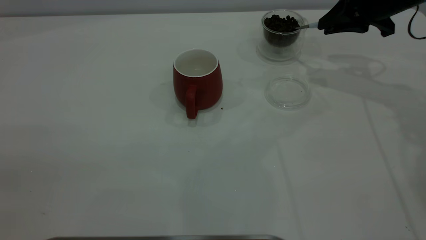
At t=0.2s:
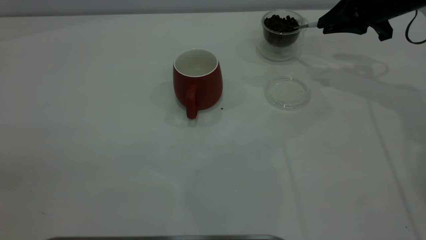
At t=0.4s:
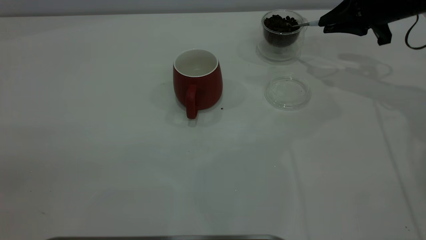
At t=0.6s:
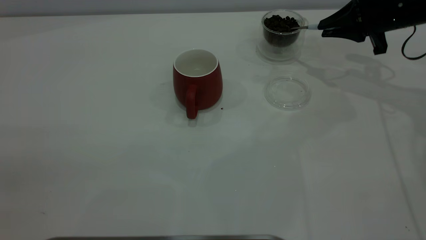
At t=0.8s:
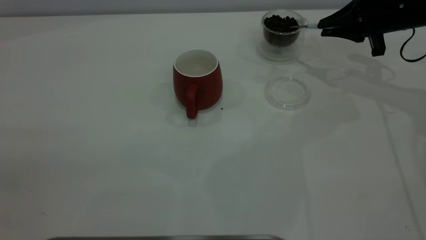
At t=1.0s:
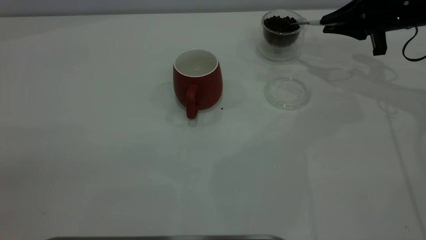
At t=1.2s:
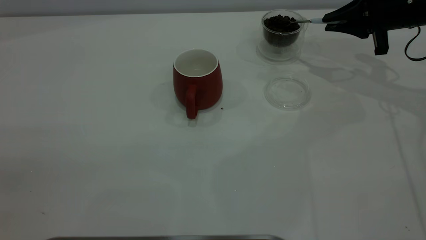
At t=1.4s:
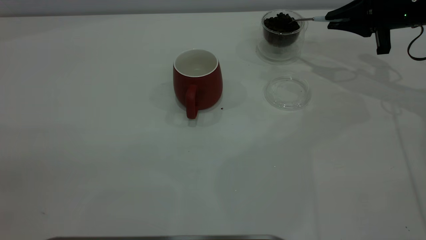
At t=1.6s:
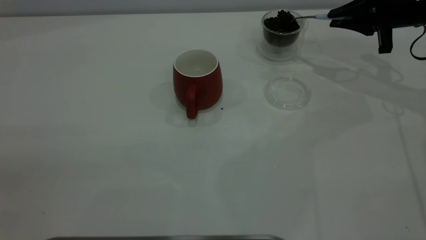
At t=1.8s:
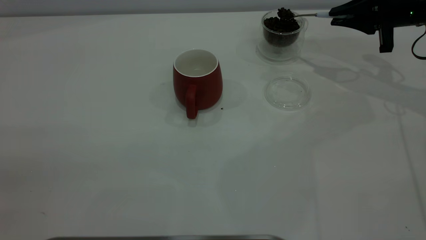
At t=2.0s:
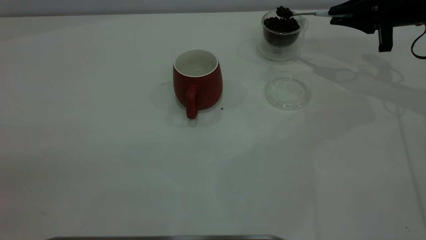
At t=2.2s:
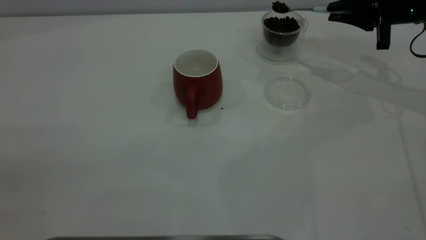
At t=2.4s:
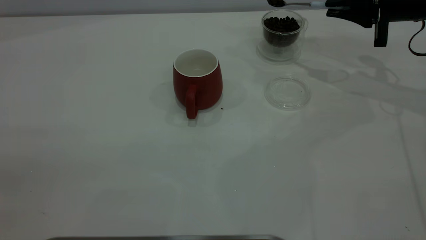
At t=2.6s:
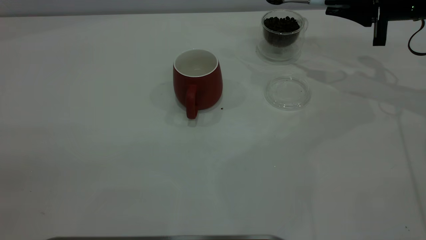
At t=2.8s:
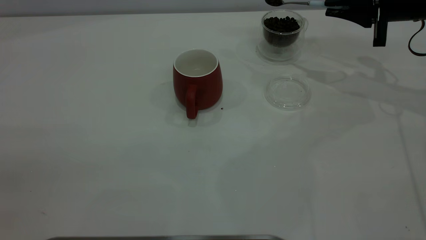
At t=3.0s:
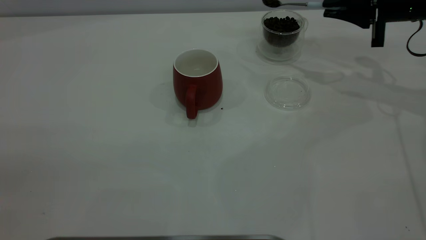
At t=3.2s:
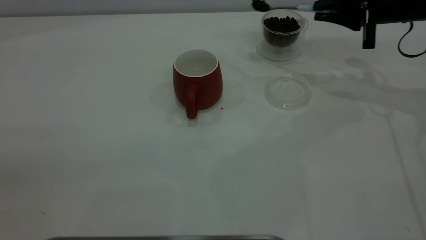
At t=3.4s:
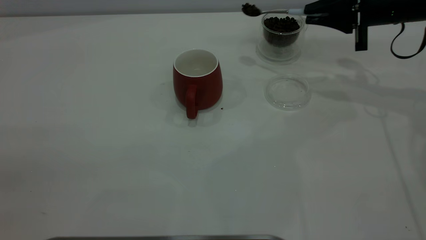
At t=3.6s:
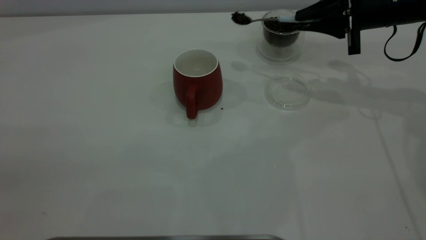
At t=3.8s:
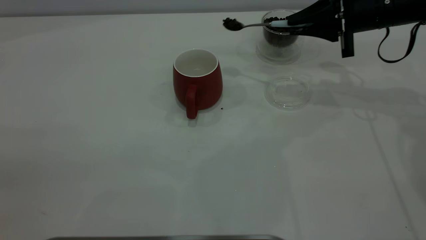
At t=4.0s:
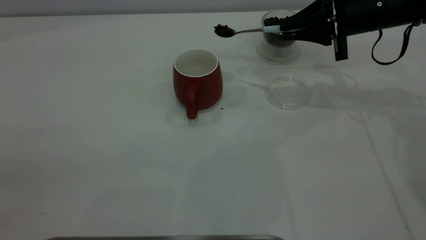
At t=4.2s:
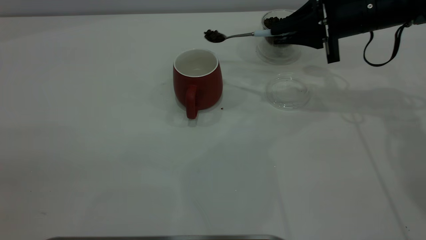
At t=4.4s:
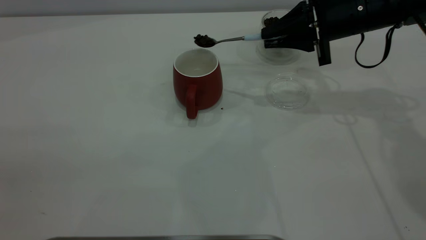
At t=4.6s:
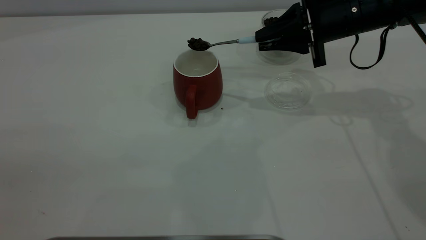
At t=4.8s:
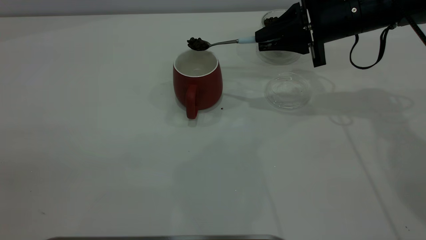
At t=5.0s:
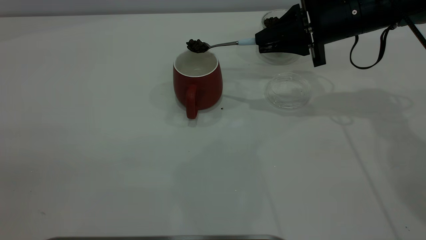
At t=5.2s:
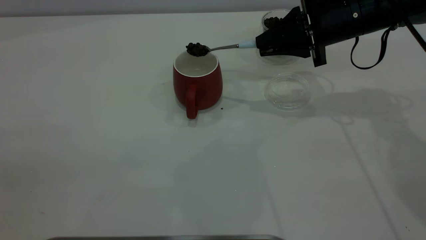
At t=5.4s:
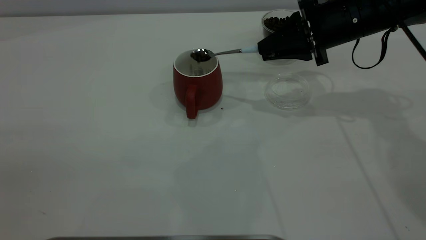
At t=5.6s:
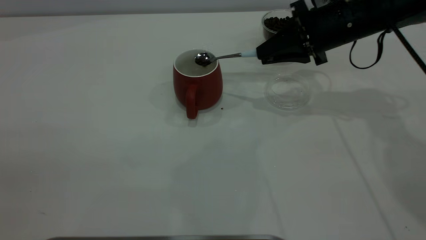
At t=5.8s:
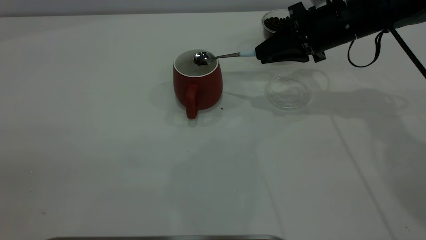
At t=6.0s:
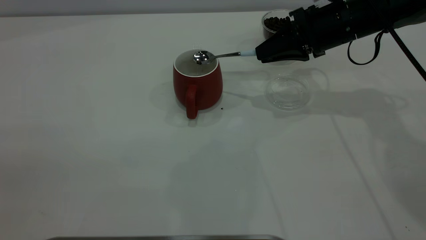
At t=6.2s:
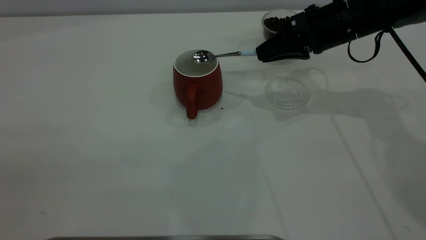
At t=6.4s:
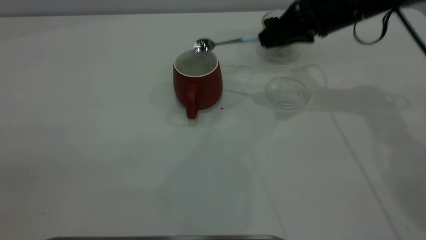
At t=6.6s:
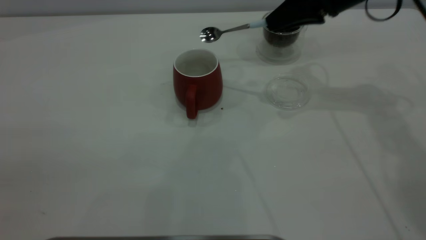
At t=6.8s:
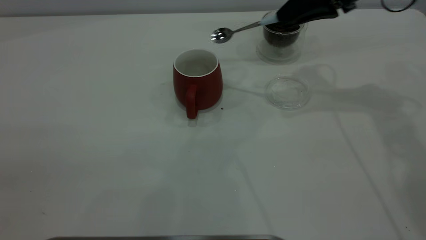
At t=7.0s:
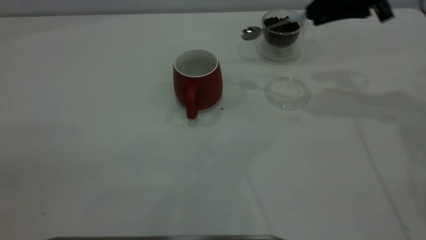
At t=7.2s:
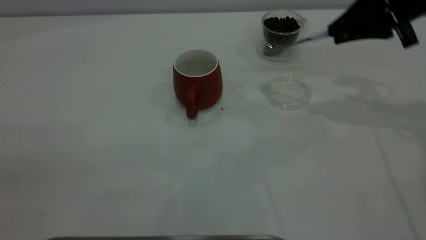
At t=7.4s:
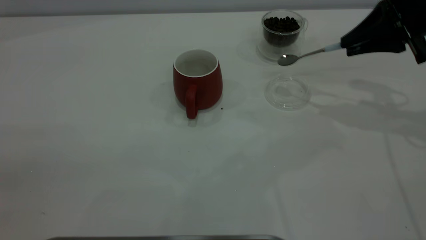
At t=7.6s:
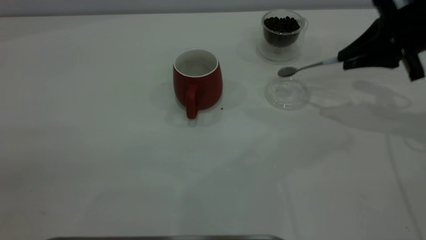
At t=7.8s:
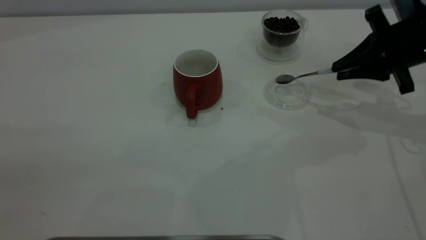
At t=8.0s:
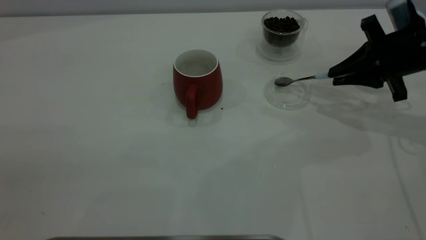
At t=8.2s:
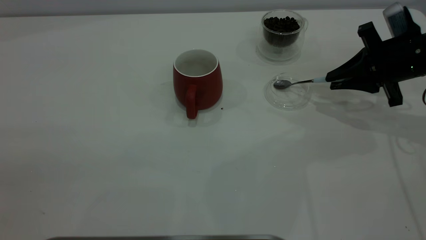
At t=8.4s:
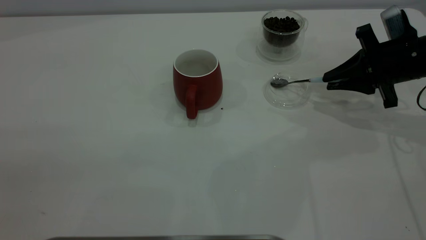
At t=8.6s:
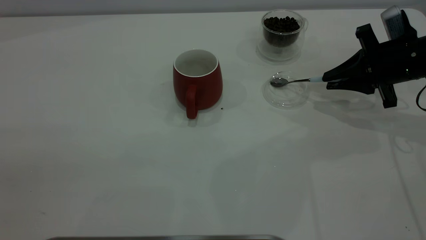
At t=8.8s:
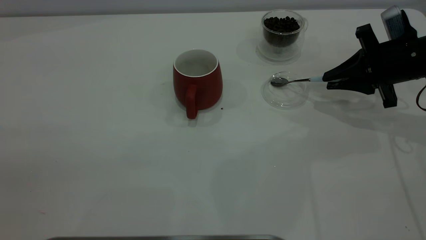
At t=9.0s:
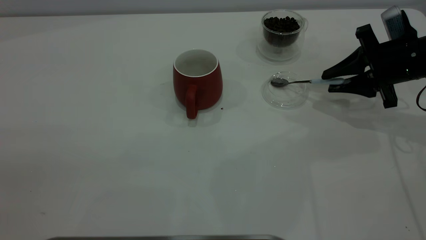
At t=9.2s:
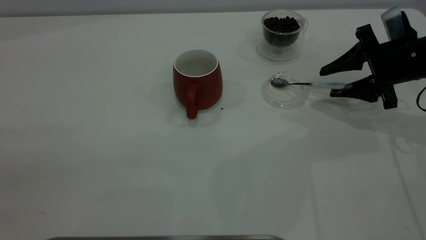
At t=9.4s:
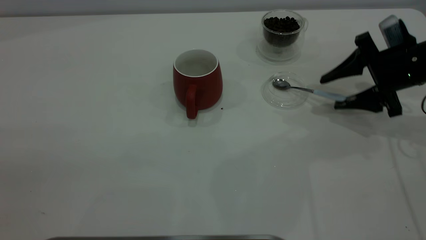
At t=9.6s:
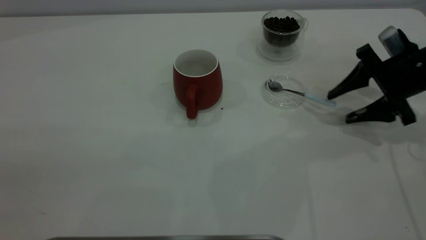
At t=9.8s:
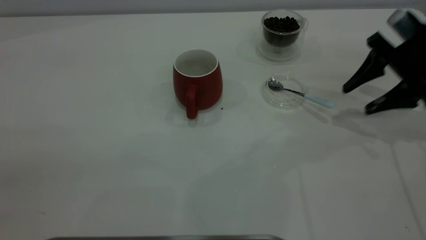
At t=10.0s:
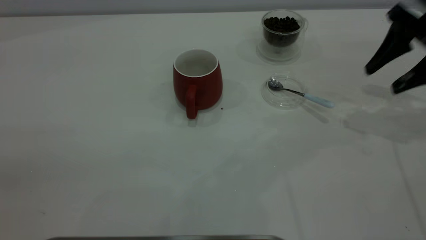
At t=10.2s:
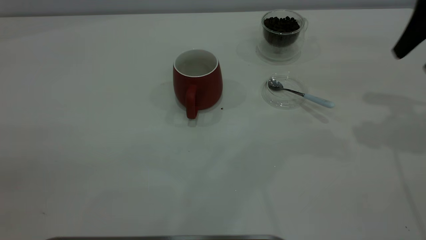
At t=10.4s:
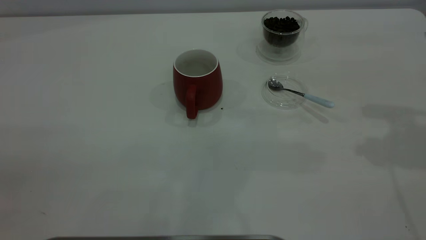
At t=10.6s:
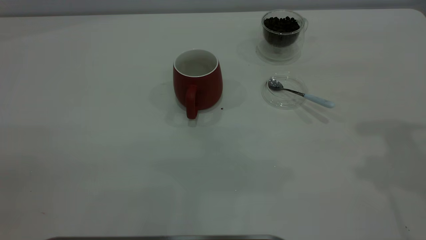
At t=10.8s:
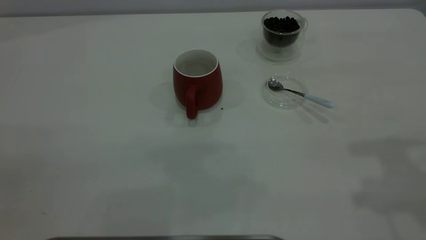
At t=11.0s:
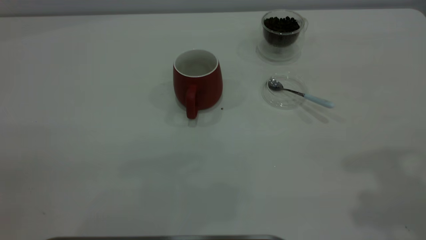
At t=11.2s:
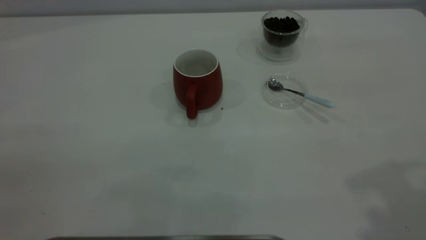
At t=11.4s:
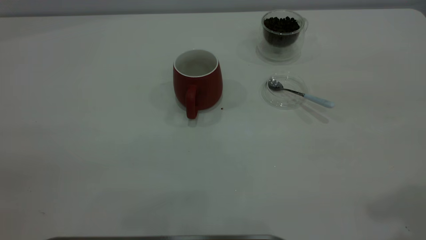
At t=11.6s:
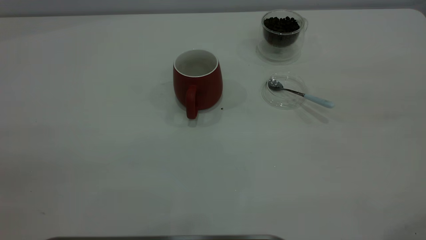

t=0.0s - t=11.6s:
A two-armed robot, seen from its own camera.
Task of the whole recording: the left gripper place the red cup in the center of the table, the right gripper take the blue spoon from the cup lid and scoop out the coffee beans from the coffee cup and put them into the red cup, the right gripper put the spoon back into the cup lid.
Step, t=0.0s - t=6.4s: Scoop a spoonful of beans into the cup.
Step, t=6.6s - t=9.6s: Place the spoon back in its original place.
t=1.4s - t=2.8s: The grippers move only a little.
t=2.8s - t=4.4s: The right gripper travels to the left by approximately 10 cm.
t=5.8s - t=7.2s: The right gripper shifts roughly 10 cm to the right and upward.
t=7.2s - t=8.8s: The right gripper shifts roughly 10 cm downward.
t=8.8s - t=10.2s: The right gripper shifts about 15 cm upward, and opens its fingers.
t=10.2s - t=11.6s: The right gripper heads backward and upward, covering approximately 30 cm.

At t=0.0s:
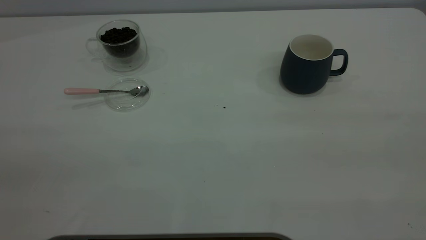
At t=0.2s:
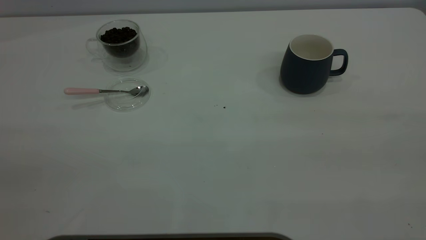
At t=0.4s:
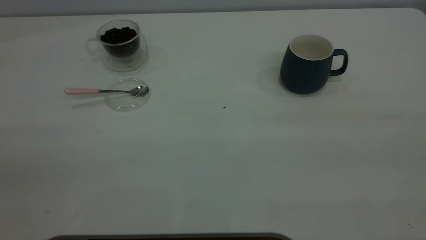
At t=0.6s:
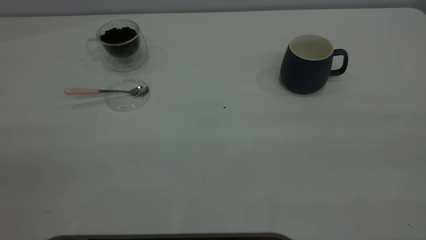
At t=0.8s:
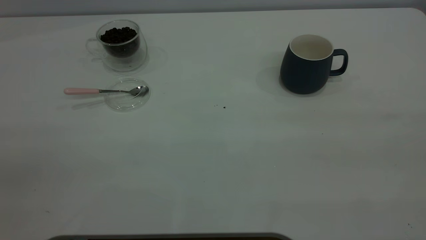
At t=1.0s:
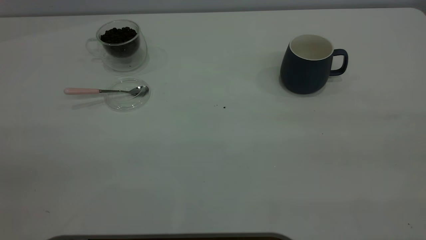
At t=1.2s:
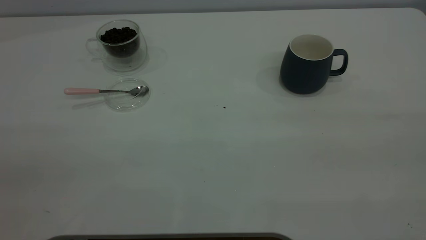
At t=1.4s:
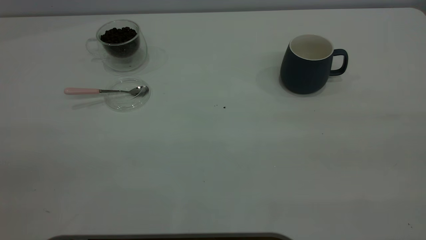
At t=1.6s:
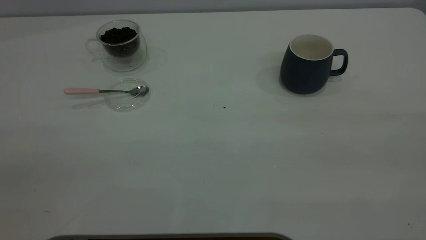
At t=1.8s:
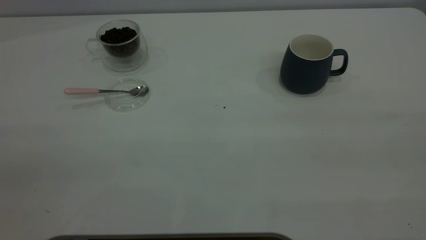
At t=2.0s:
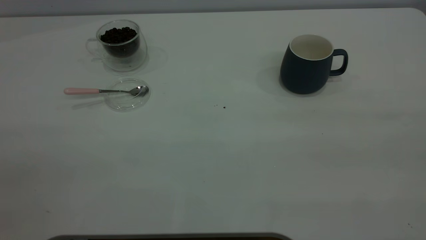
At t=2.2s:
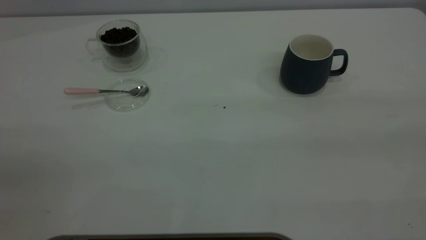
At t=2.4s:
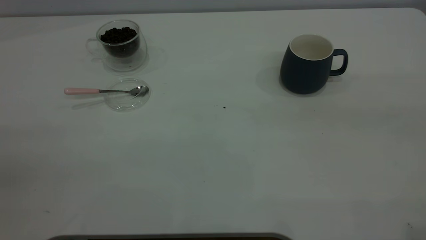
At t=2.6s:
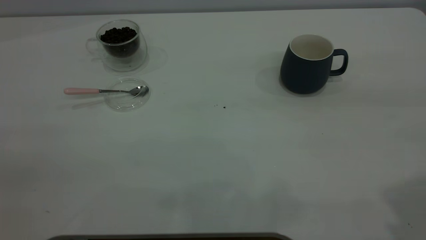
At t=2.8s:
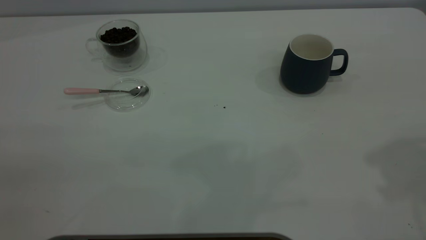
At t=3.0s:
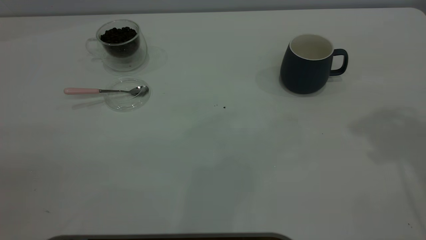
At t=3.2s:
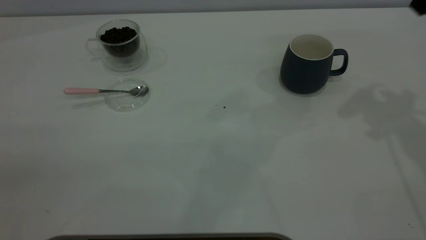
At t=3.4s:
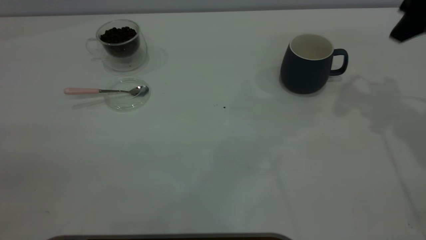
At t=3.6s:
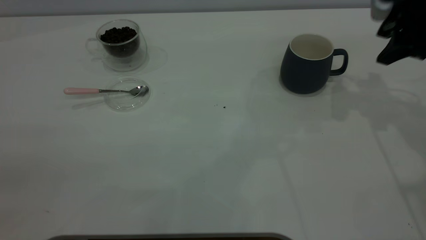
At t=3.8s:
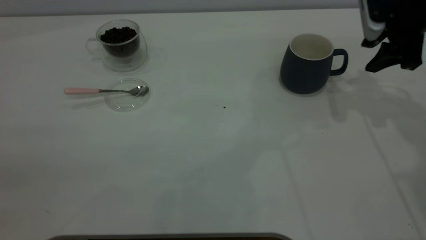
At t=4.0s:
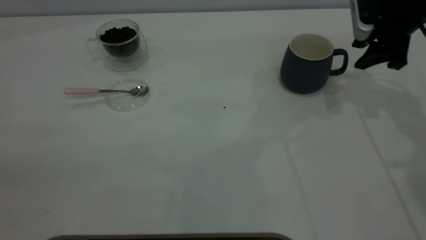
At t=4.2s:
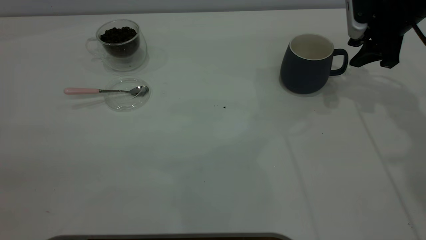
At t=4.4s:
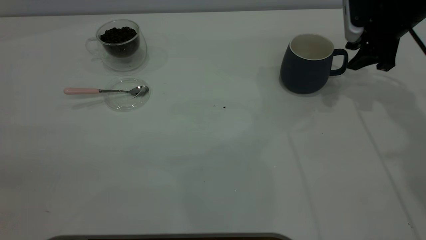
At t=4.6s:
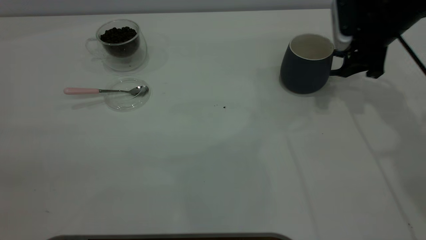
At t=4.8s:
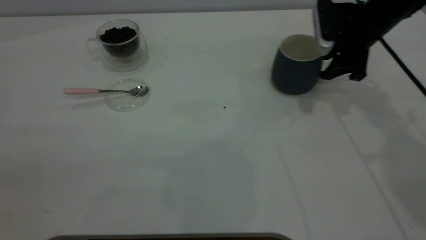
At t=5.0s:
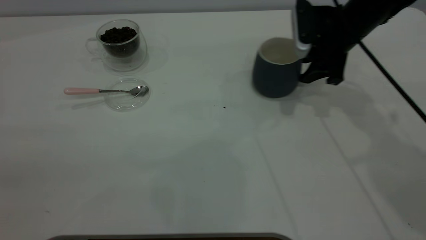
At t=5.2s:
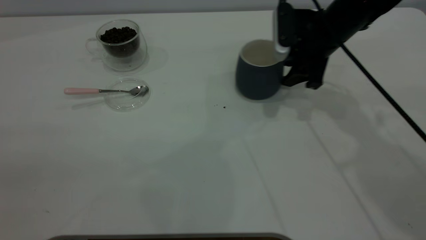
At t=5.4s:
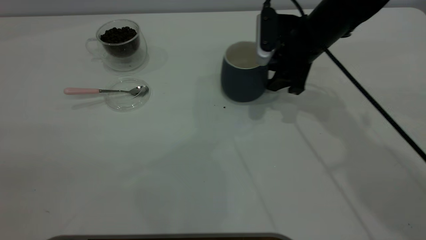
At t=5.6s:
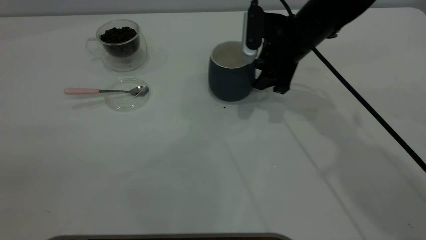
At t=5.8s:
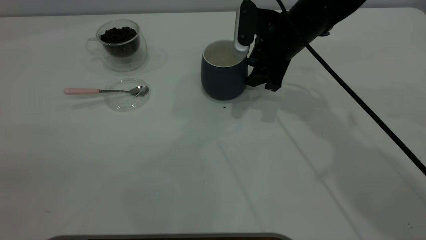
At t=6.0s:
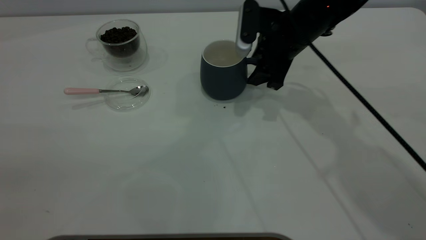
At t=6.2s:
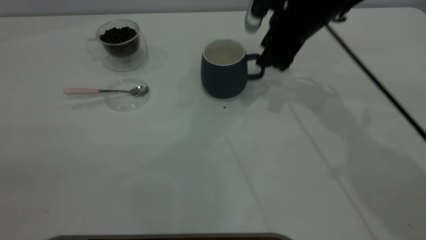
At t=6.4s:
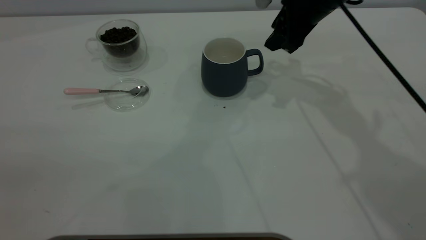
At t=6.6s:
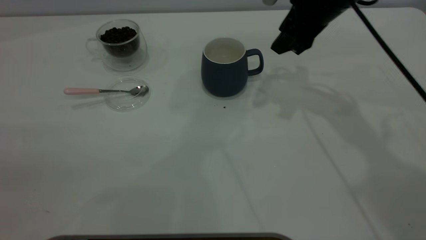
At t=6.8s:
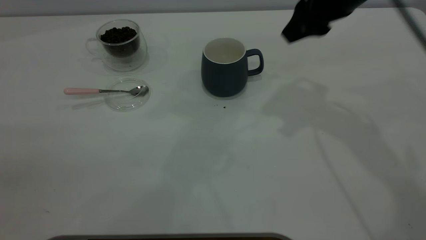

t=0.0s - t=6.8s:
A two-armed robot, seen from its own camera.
Task of the whole recording: the right gripper place the grey cup in the center of the table, the left gripper take the pink spoon from the cup lid and scoop out the coffee beans from the coffee cup and put them into the grey cup, the left gripper put the spoon back into the cup lid.
Step, t=0.0s - t=6.2s: Move the cup to the center of view.
t=0.0s - t=1.4s: Neither gripper changes place.
t=2.8s - t=4.0s: The right gripper goes approximately 30 cm forward and downward, and closes up.
t=4.0s - t=5.4s: The right gripper goes roughly 15 cm to the left.
t=5.4s - t=6.8s: The right gripper goes approximately 15 cm upward and backward.
